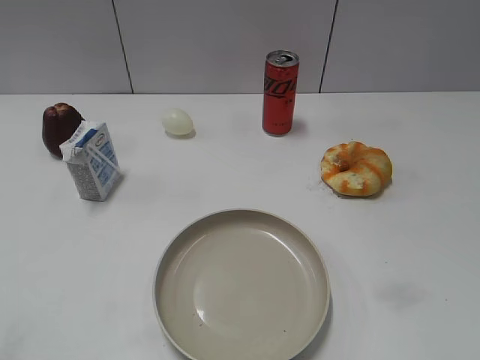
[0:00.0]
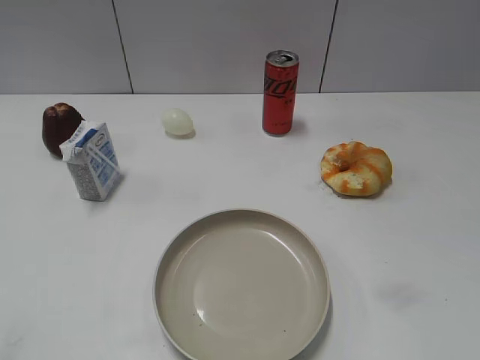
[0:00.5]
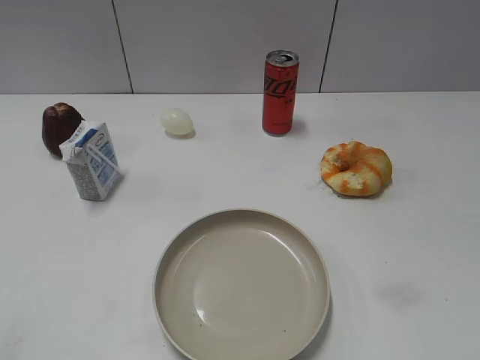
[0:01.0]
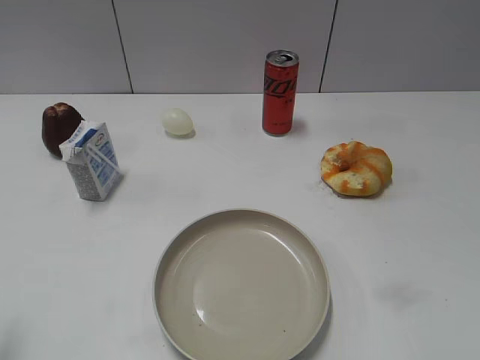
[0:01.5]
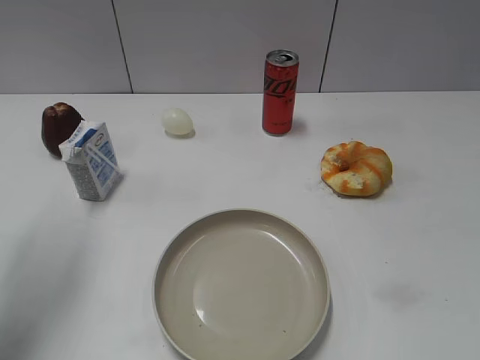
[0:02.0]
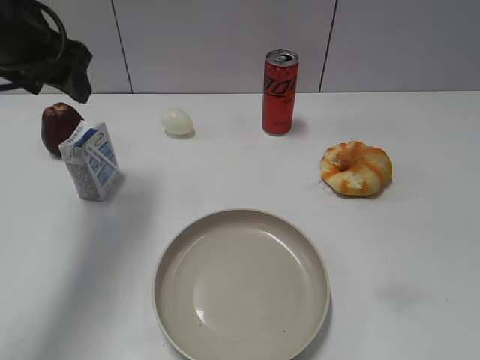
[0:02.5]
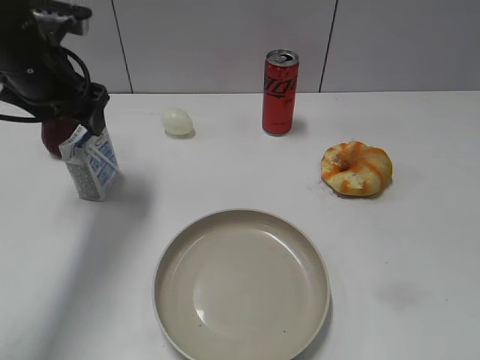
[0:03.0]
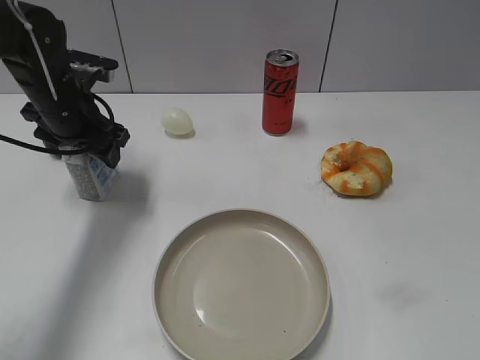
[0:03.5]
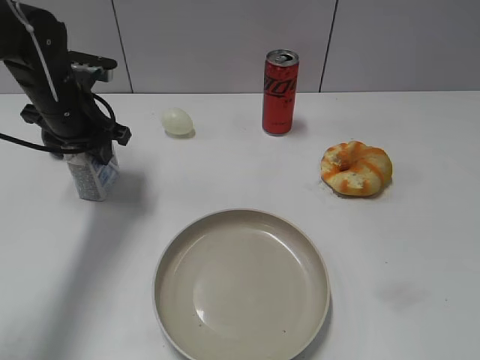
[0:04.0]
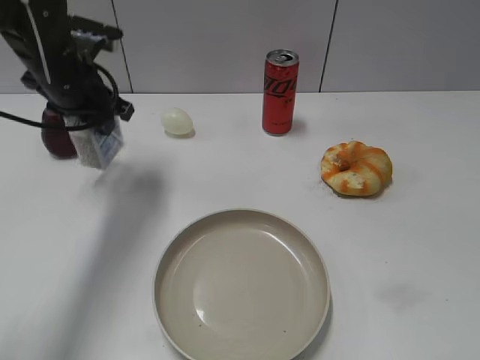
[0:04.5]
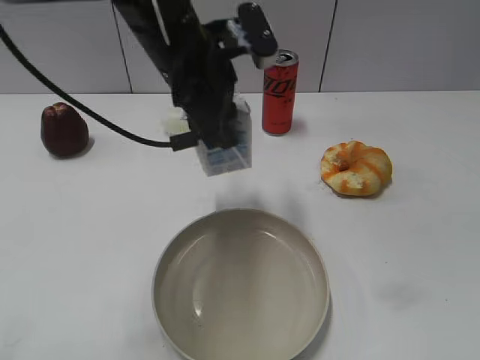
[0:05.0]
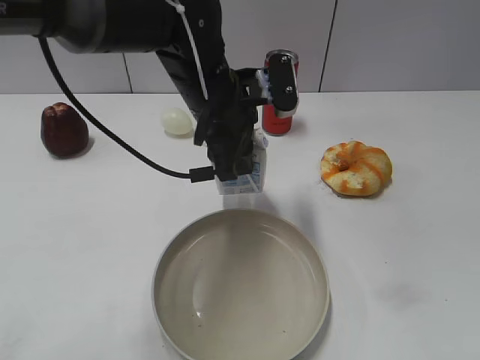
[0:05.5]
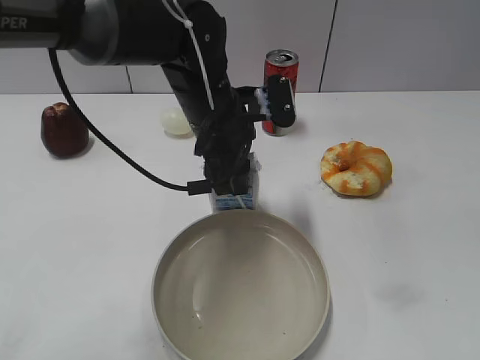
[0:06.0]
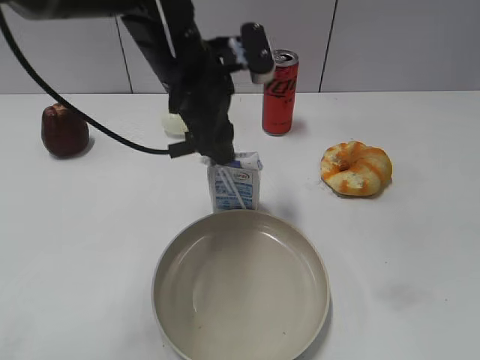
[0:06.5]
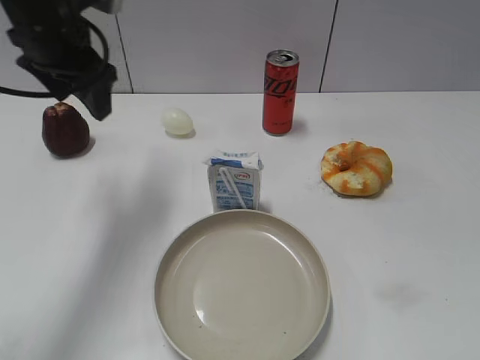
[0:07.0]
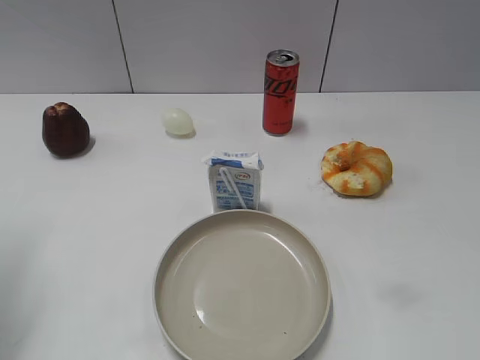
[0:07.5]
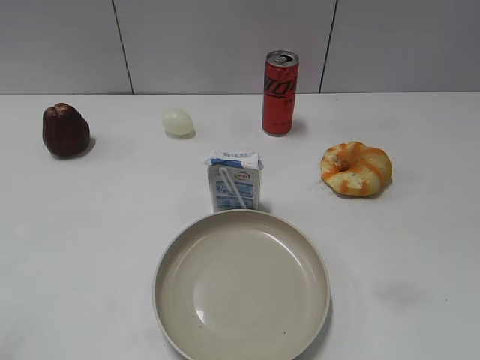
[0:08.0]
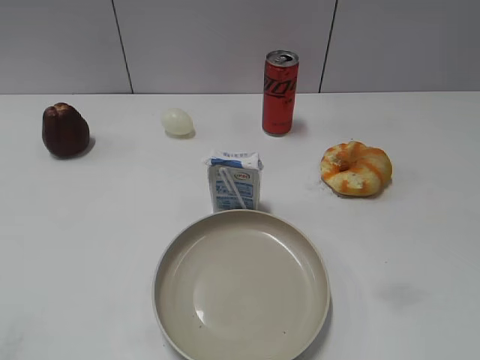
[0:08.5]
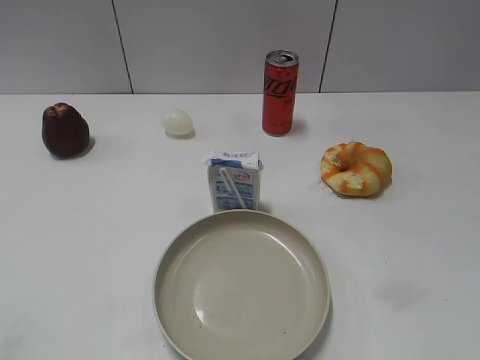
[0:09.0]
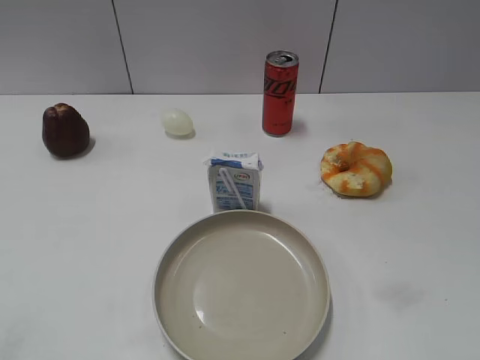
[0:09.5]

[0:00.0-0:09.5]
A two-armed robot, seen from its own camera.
0:02.0 to 0:04.0: The left gripper travels downward, forward and to the right by approximately 20 cm, and closes its fingers.
0:04.0 to 0:05.5: The left gripper goes some 20 cm to the right.
0:05.5 to 0:07.5: The left gripper is displaced to the left by approximately 30 cm, and opens up.
0:07.5 to 0:09.5: The left gripper shifts some 20 cm backward.

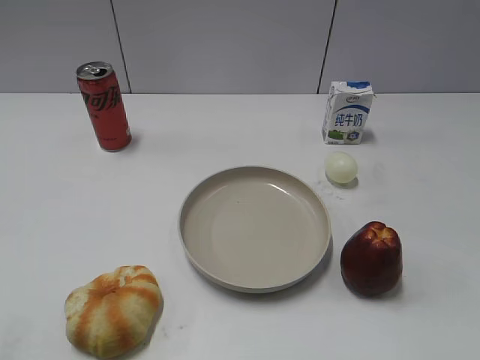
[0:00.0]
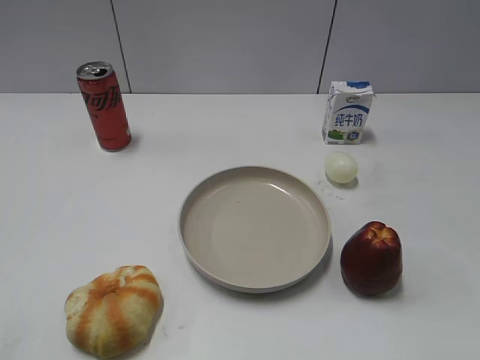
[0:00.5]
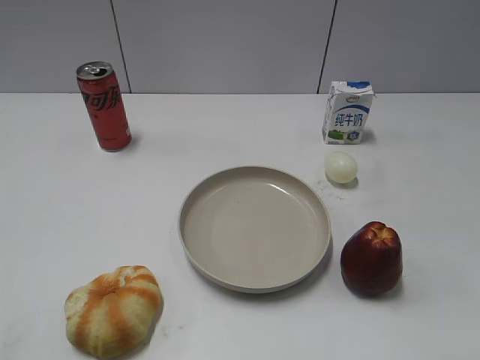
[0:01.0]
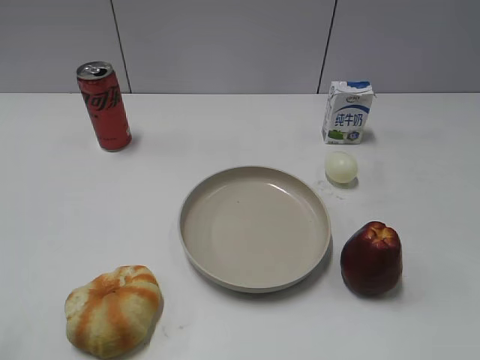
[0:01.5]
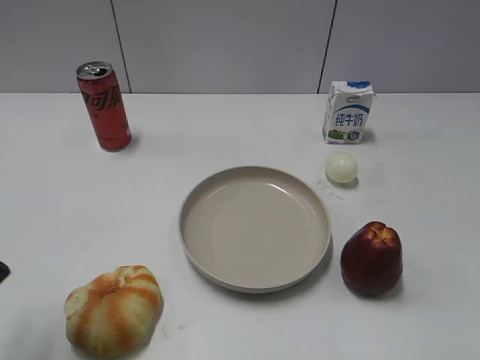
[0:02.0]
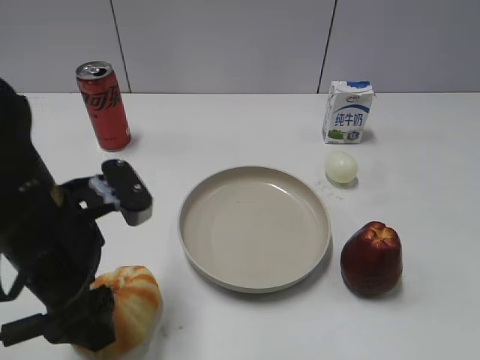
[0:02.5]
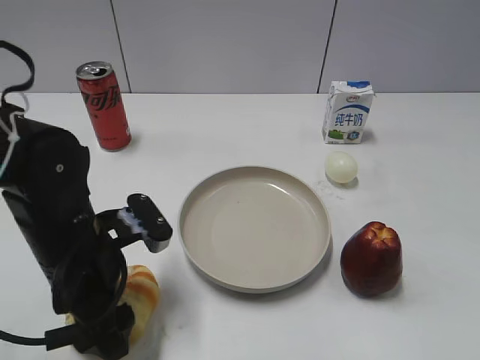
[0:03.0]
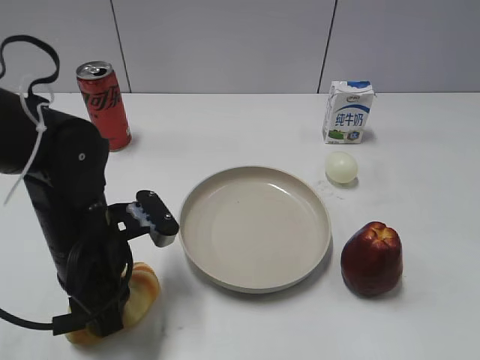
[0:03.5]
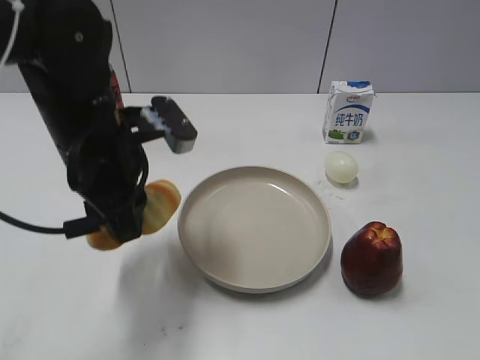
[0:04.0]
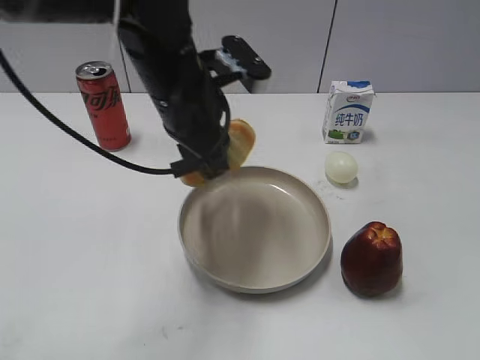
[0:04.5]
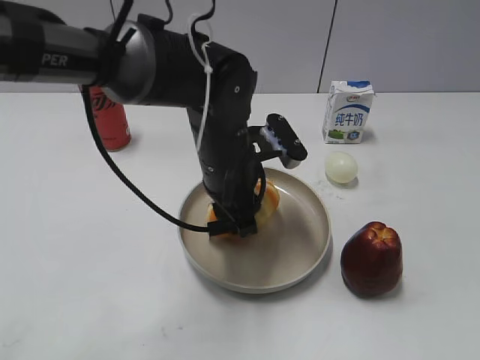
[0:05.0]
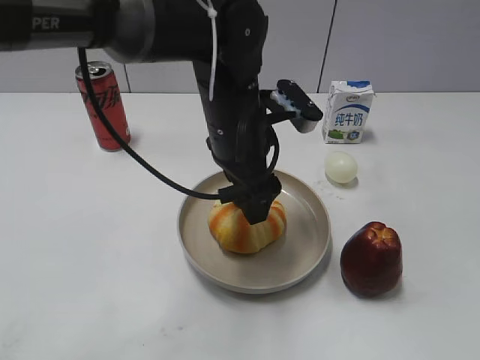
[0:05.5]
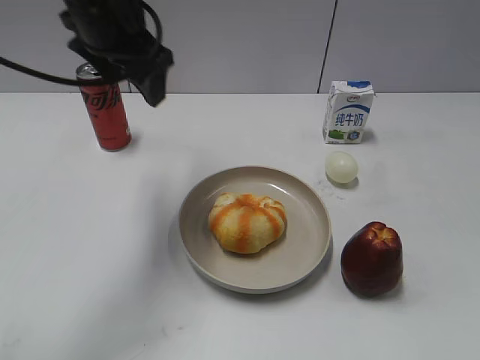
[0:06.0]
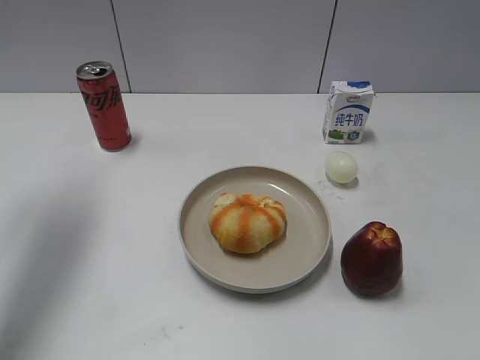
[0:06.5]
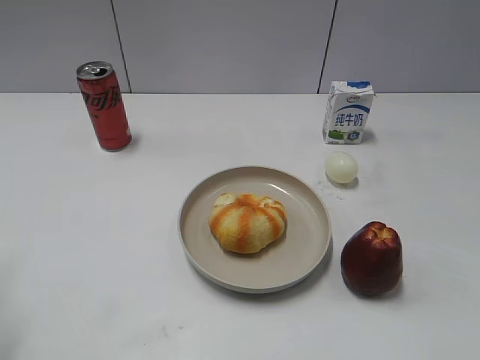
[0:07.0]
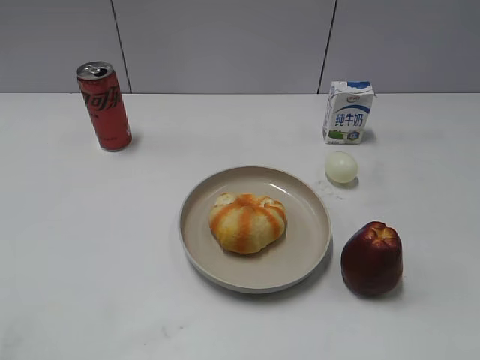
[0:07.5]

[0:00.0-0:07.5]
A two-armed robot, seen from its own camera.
Step, 0:01.5 to 0:03.5: Grasp the round bread with left gripper.
Step, 0:04.0 to 0:05.5: Place the round bread on the plate with left gripper.
0:02.0 to 0:04.0: The left gripper shifts roughly 20 cm to the right, forward and downward, and closes up.
0:04.0 to 0:05.5: The left gripper heads to the right, covering roughly 10 cm, and opens its fingers.
0:05.5 to 0:07.5: The left gripper goes about 40 cm to the left and backward.

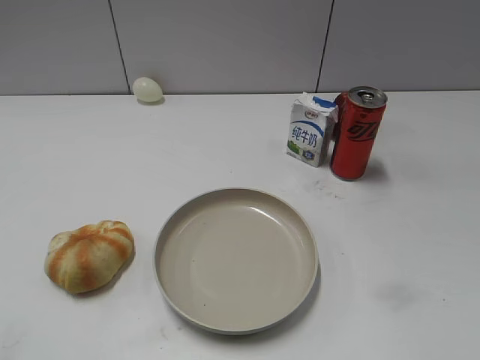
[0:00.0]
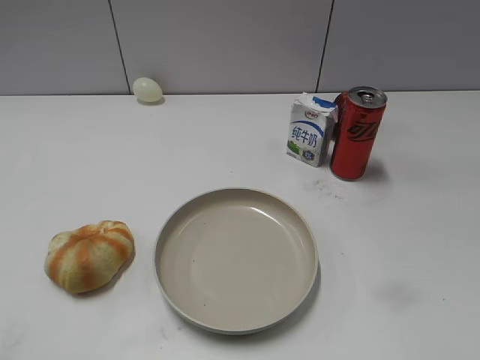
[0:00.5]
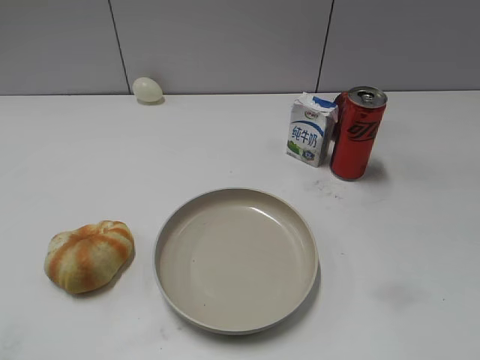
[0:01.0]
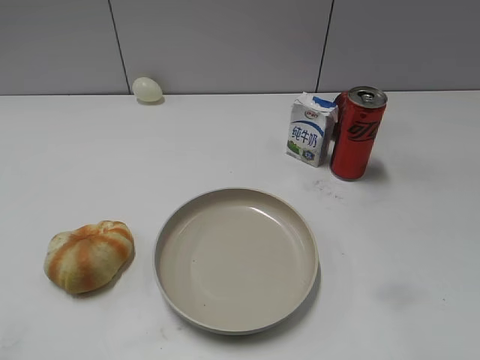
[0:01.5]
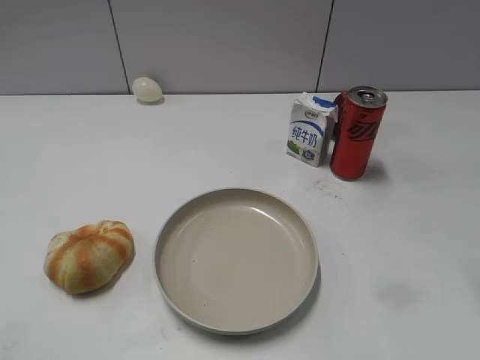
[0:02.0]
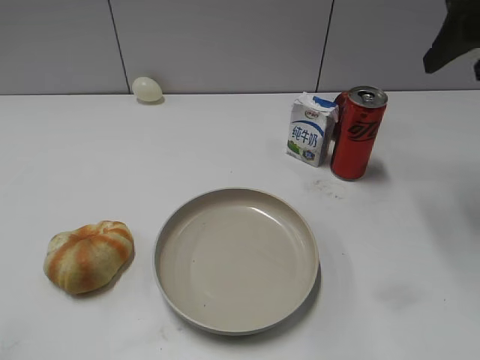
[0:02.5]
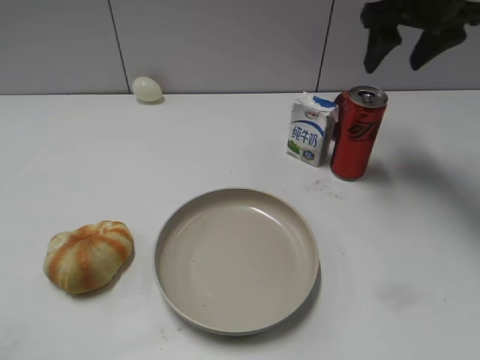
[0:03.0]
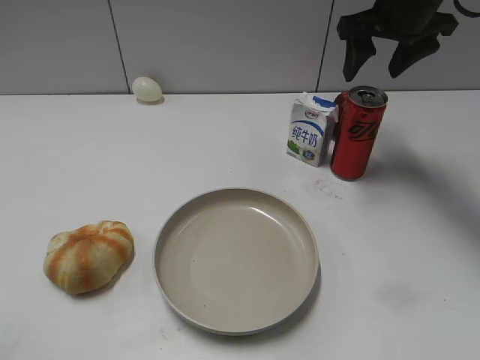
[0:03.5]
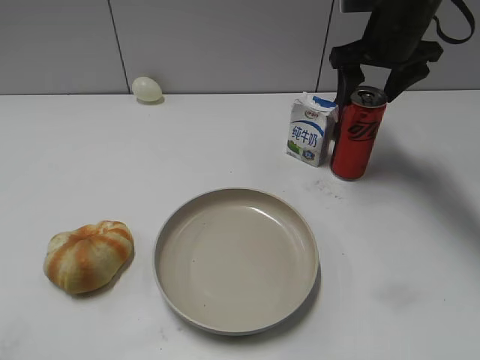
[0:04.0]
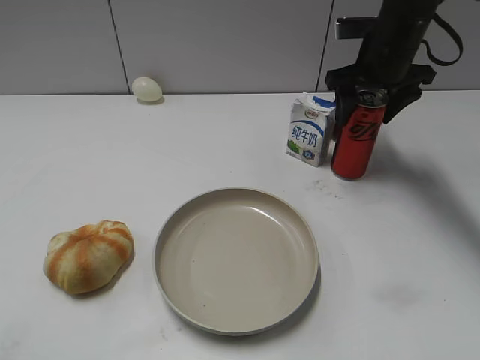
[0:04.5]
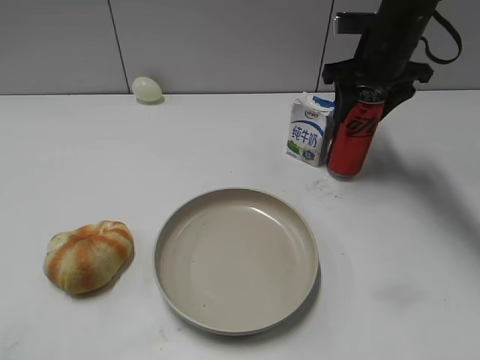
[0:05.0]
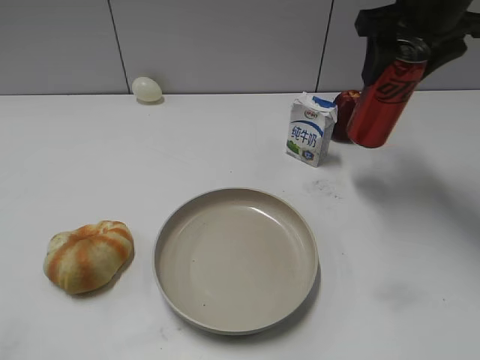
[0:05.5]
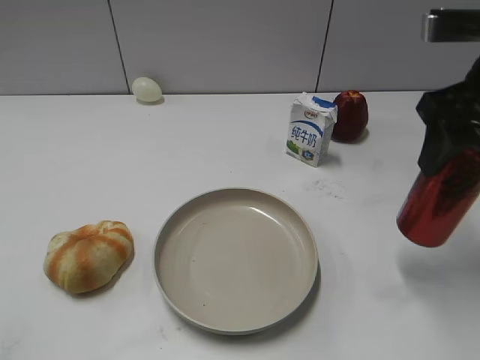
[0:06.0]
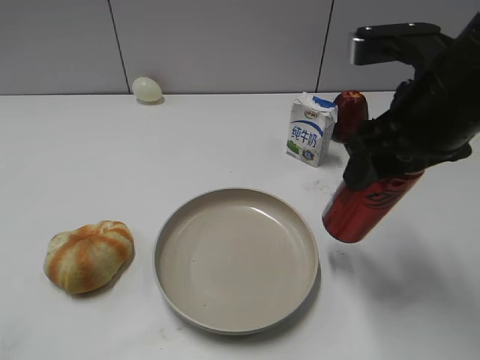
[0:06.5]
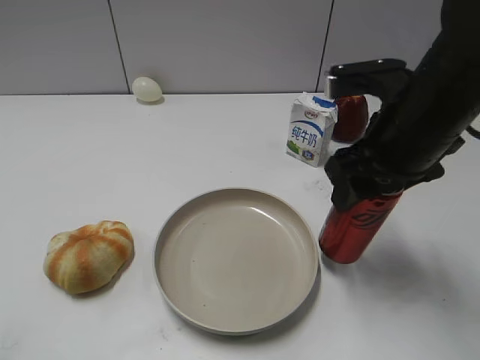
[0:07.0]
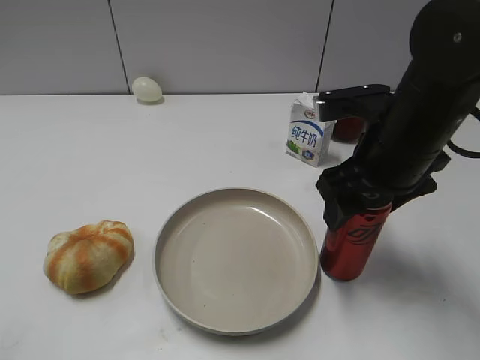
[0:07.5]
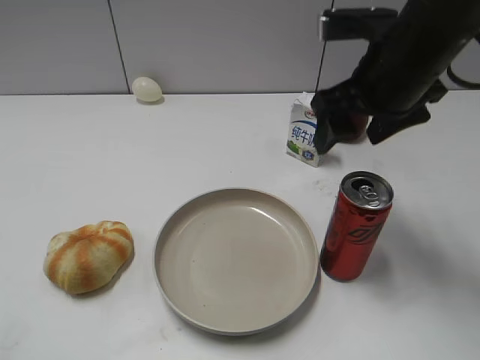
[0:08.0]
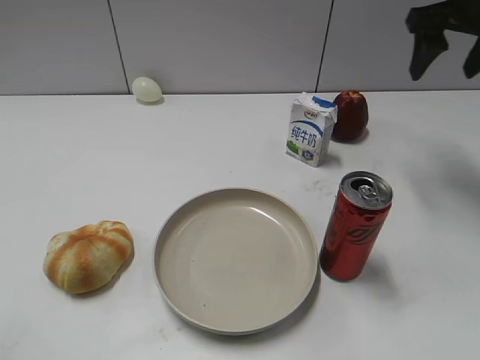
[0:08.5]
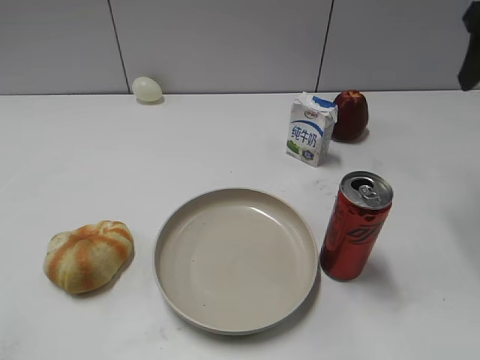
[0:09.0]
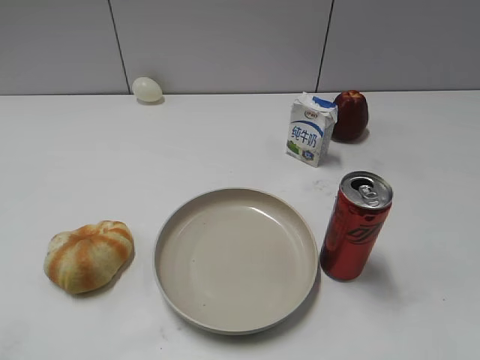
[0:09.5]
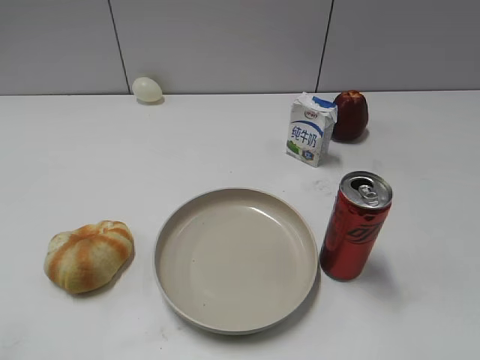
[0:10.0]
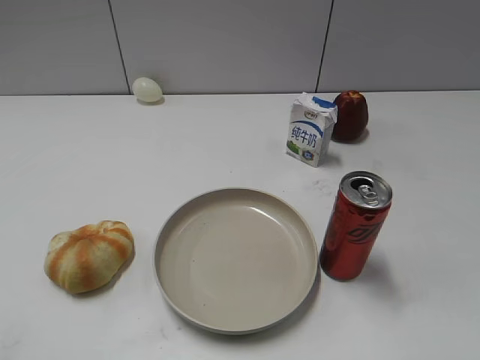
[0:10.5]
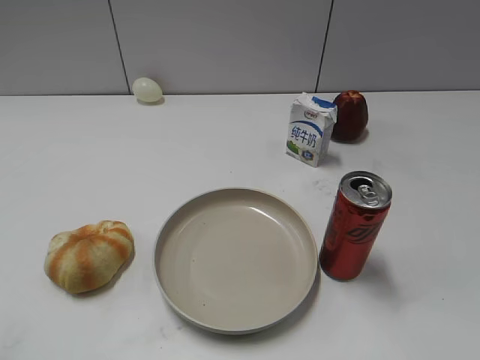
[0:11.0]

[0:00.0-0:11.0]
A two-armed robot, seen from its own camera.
Step, 0:01.0 to 0:04.5: Grasp the cola with right gripper.
Step, 0:05.0 to 0:07.5: Place the cola on the table with right gripper.
0:02.0 to 0:03.5: The right gripper goes approximately 25 cm forward.
0:03.5 to 0:05.5: The right gripper moves some 5 cm downward and comes back, and closes.
0:05.5 to 0:07.5: The right gripper travels backward, downward and to the left by some 15 cm, and opens up.
0:07.5 to 0:09.0: The right gripper is displaced upward and to the right by approximately 20 cm, and closes.
0:09.0 to 0:11.0: The right gripper shifts some 35 cm backward.
